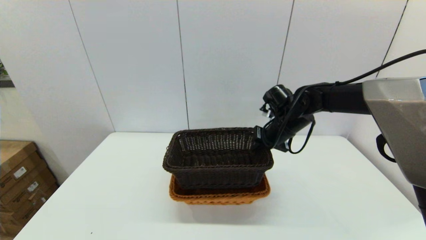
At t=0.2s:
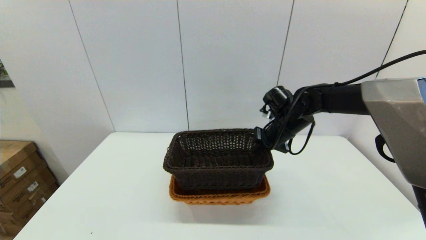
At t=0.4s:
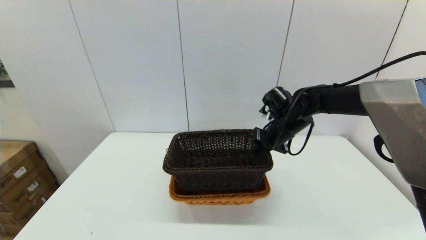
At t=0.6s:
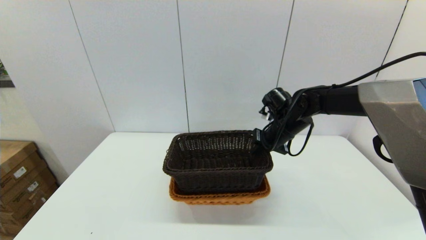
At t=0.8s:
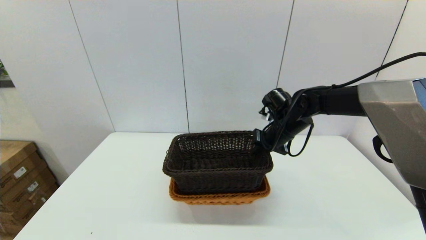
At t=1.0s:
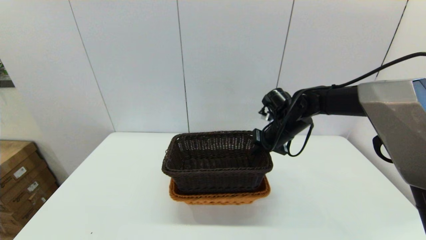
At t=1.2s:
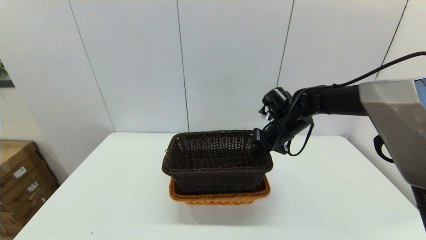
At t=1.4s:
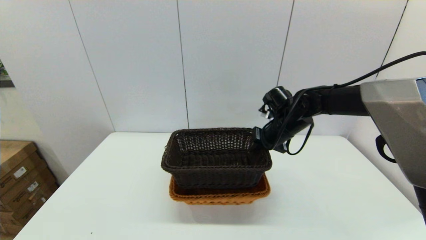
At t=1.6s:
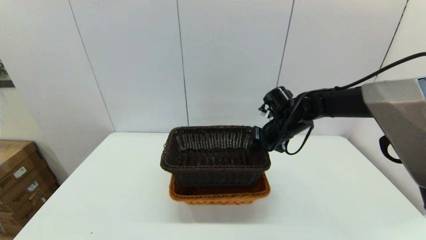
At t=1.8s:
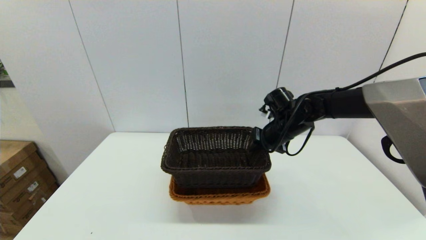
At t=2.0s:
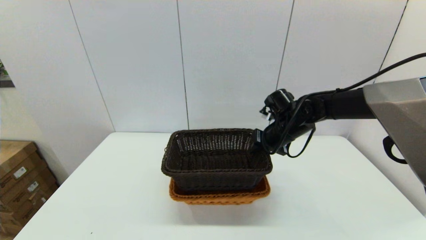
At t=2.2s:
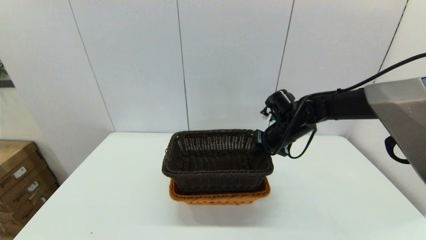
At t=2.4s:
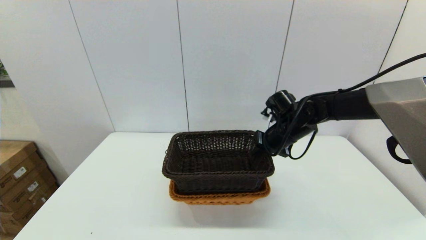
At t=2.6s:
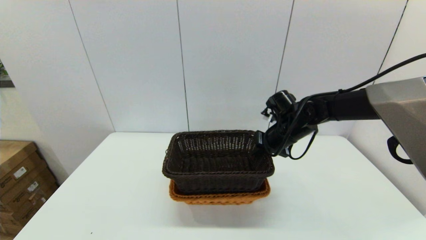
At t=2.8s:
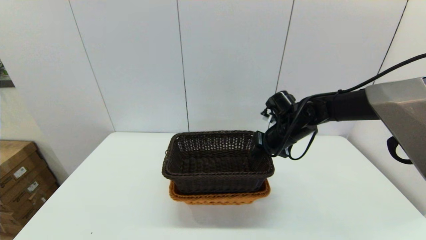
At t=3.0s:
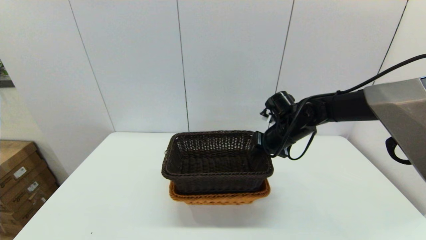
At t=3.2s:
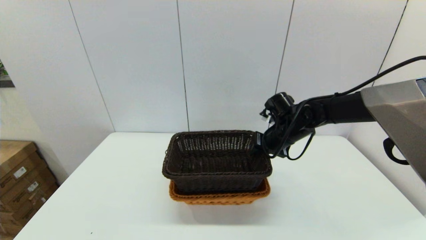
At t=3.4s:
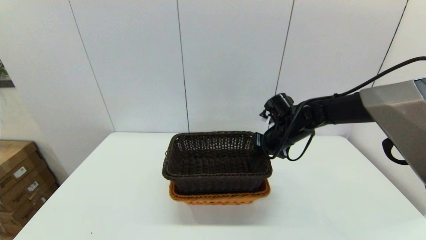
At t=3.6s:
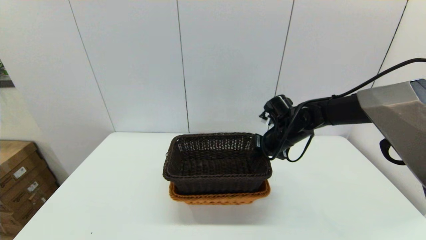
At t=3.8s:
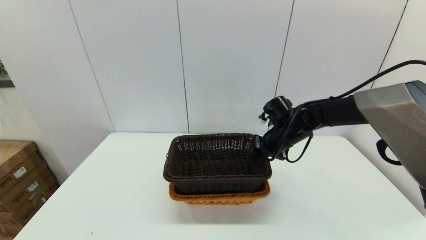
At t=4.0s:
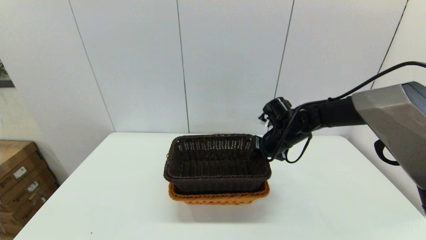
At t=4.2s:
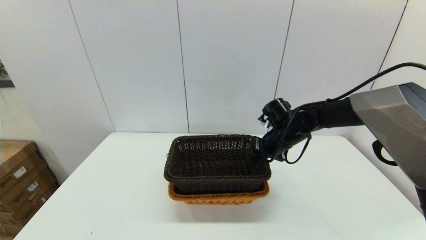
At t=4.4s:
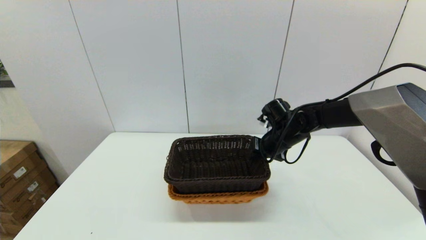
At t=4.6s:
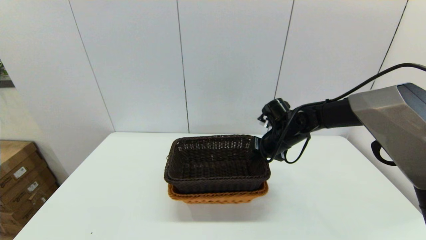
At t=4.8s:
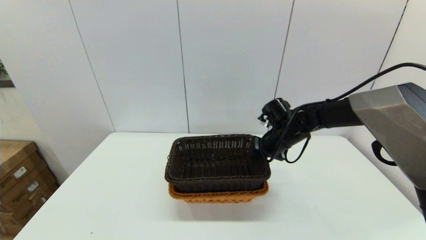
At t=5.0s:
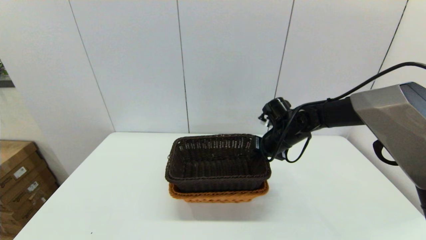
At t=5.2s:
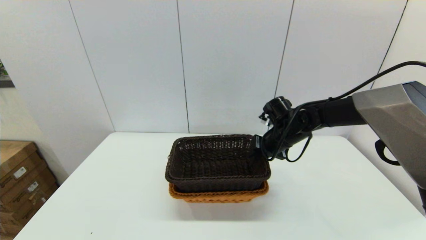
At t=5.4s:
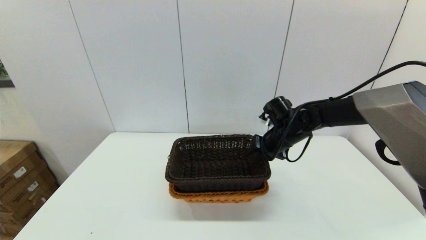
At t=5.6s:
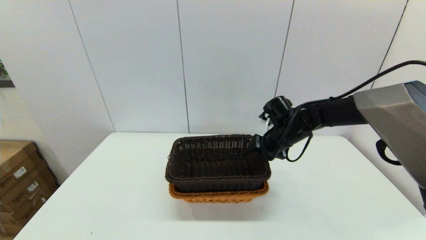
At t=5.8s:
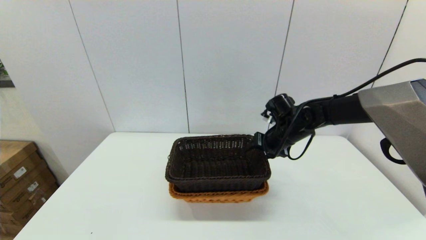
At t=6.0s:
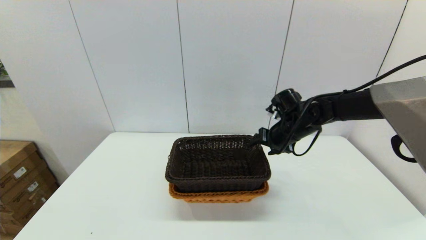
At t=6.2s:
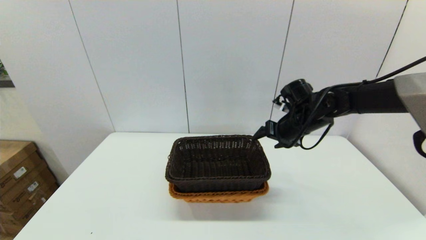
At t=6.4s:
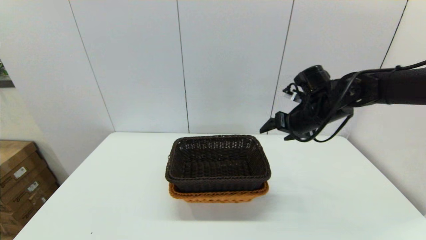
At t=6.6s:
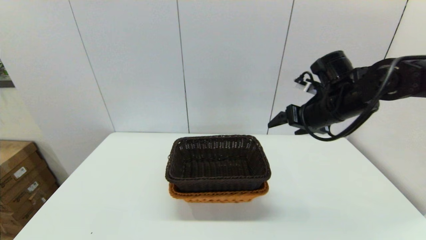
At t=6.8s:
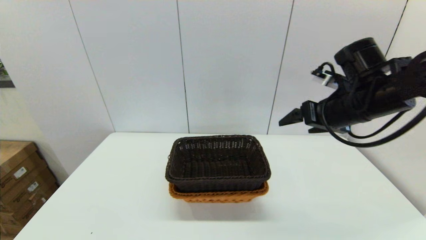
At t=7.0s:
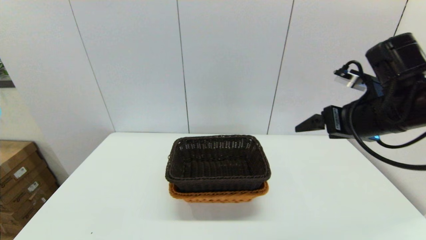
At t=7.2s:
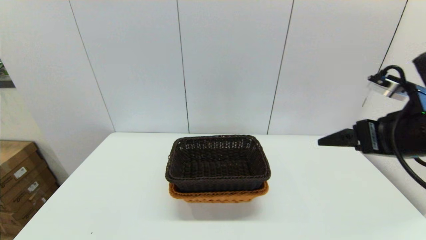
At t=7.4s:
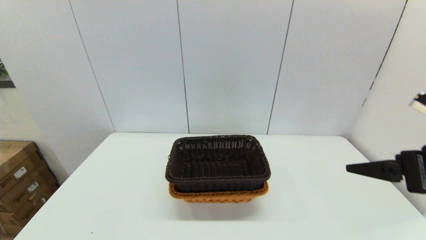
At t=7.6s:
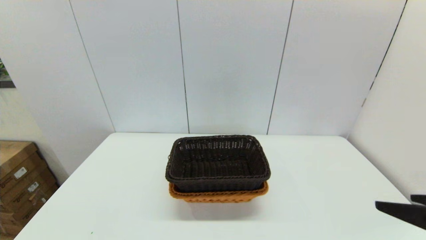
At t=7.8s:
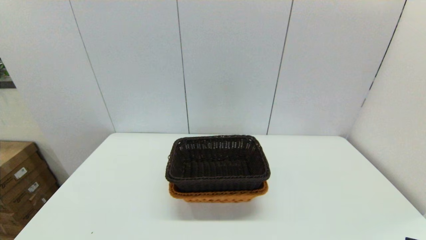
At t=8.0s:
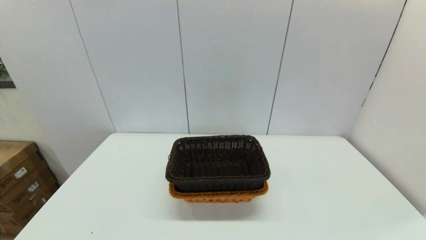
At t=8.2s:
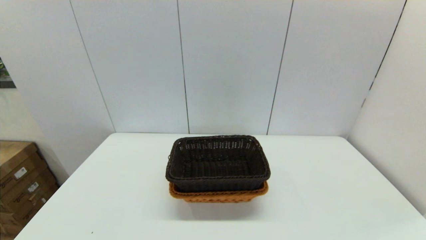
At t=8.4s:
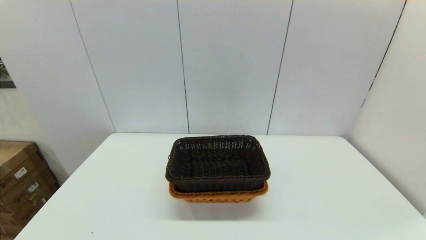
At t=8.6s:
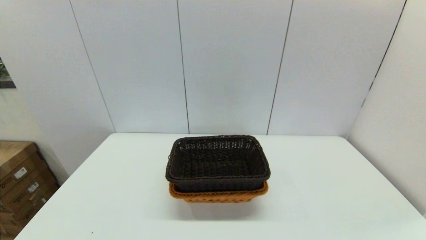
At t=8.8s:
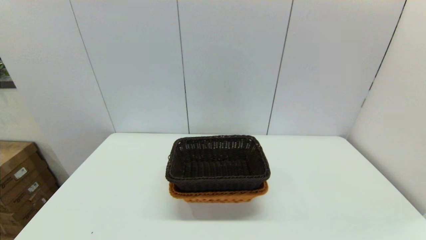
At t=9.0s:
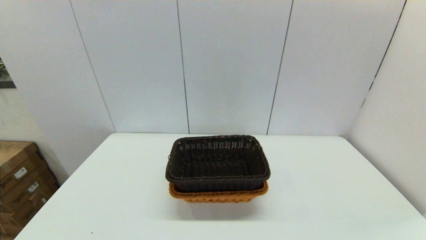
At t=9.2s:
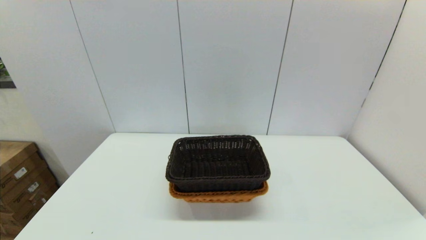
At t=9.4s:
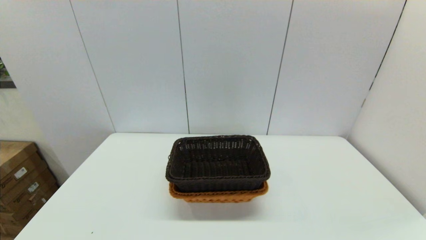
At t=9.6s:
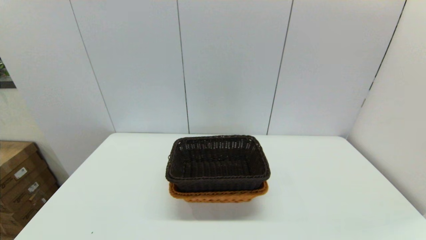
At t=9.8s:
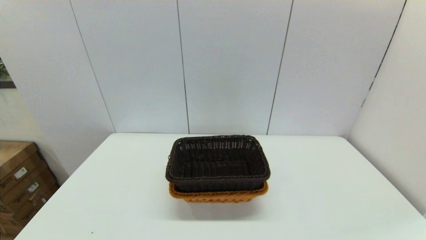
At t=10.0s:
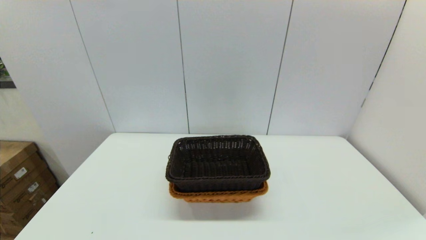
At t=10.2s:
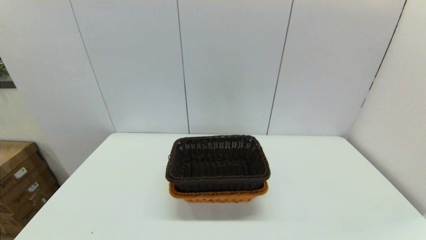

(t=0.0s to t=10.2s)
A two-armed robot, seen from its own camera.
Task of the whole recording: stack a basket on top of another basket.
Step, t=0.0s - t=6.2s: Place the dark basket into the light color basket with the right gripper.
t=0.0s - t=1.4s: Both grippers stay put.
t=1.4s - t=4.4s: There are only small adjustments of the grippers.
t=4.4s - t=5.8s: The right gripper opens its fingers.
t=5.8s - t=7.2s: The right gripper heads backward, upward and to the right, covering approximately 25 cm.
t=7.2s - t=8.8s: The right gripper goes roughly 25 cm backward and downward.

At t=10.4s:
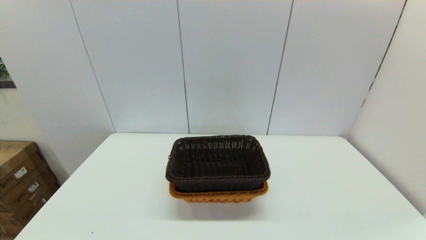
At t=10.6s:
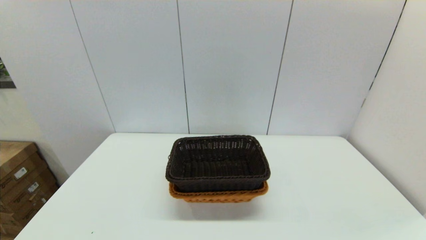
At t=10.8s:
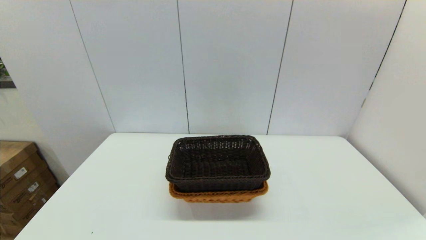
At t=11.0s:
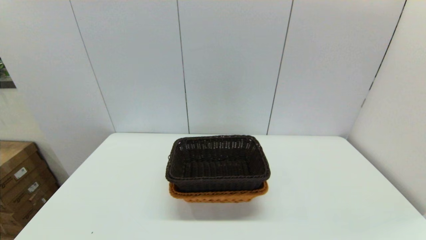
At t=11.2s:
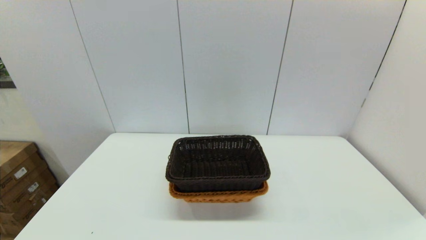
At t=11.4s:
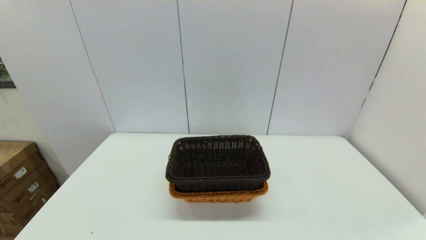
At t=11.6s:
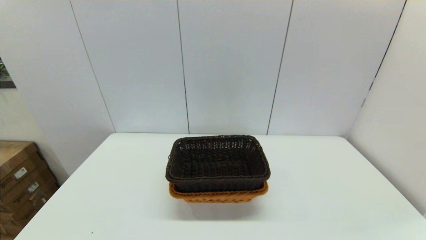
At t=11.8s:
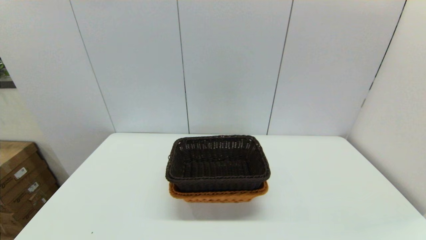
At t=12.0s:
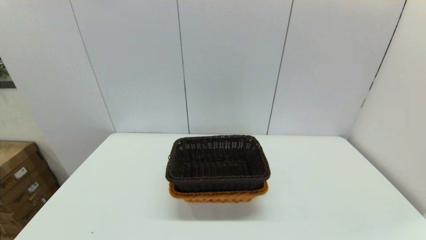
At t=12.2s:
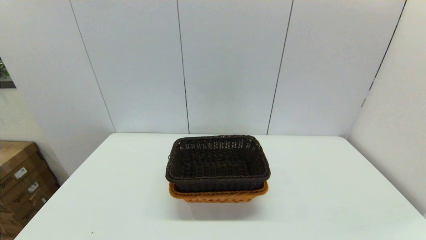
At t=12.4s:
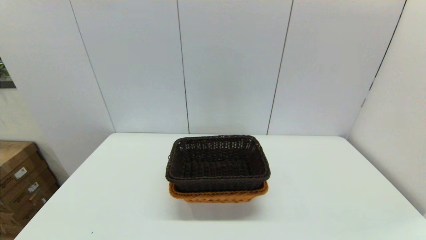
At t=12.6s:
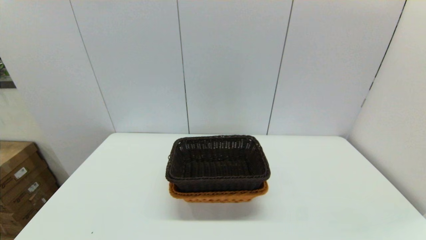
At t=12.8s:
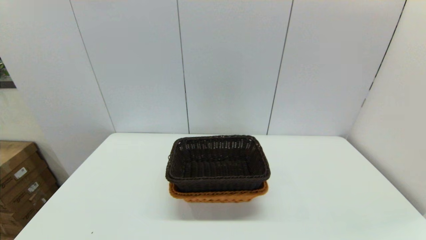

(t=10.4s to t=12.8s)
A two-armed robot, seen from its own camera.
Task of the whole recording: stack a basket on top of another basket.
t=10.4s - t=12.8s: Neither gripper changes place.
